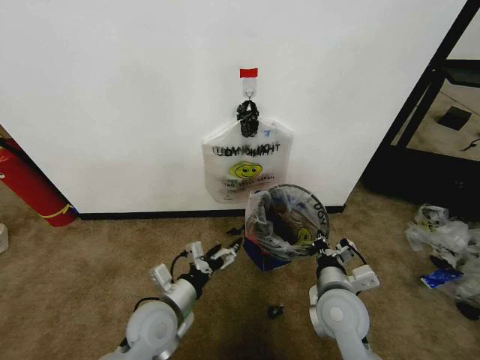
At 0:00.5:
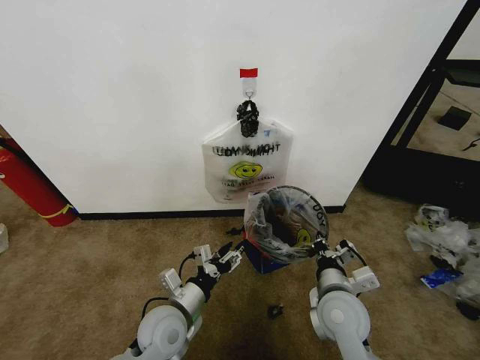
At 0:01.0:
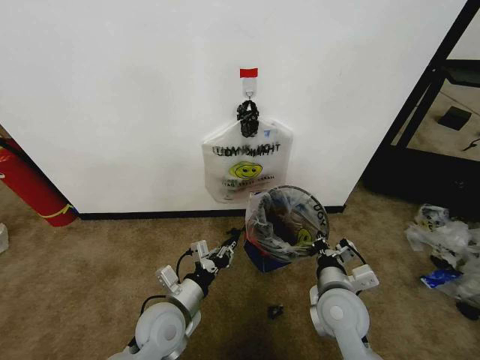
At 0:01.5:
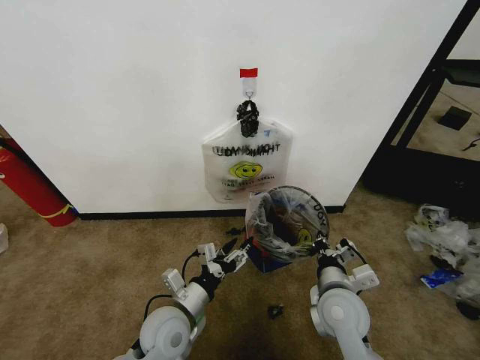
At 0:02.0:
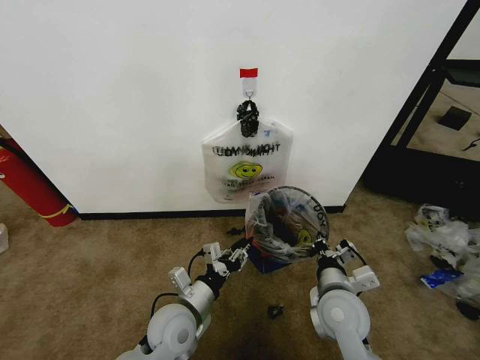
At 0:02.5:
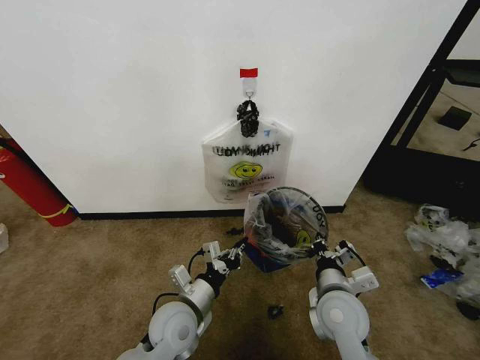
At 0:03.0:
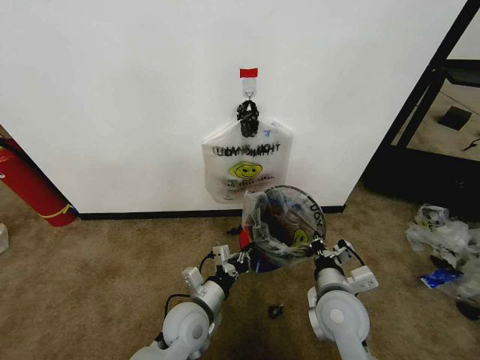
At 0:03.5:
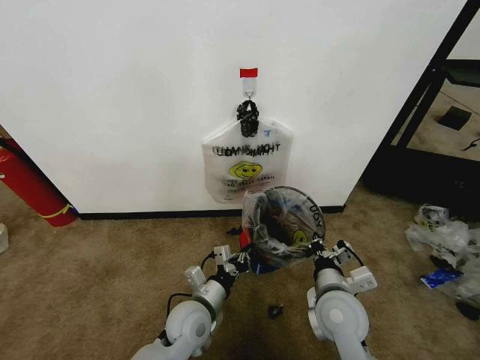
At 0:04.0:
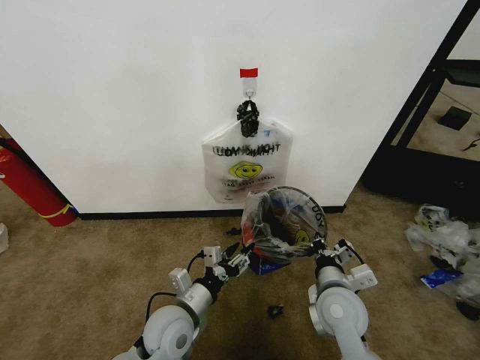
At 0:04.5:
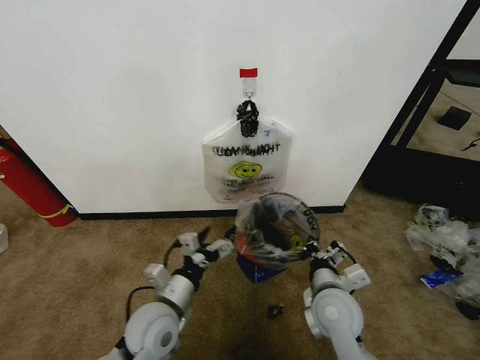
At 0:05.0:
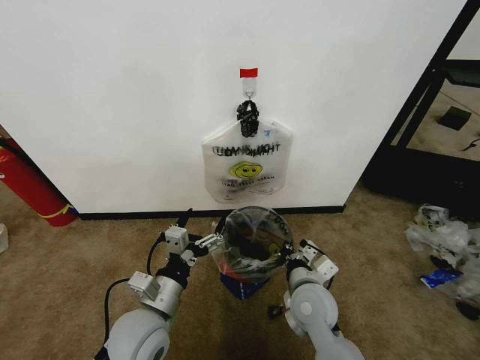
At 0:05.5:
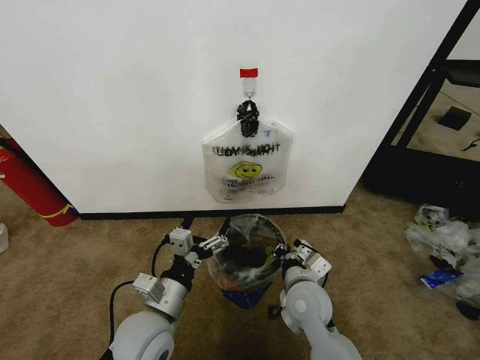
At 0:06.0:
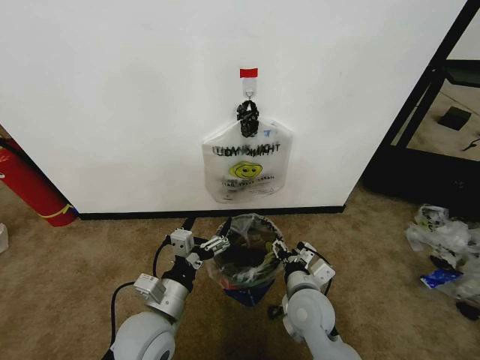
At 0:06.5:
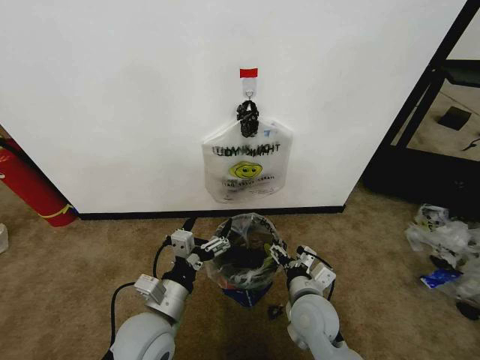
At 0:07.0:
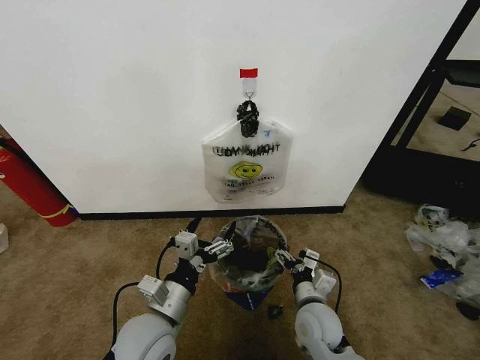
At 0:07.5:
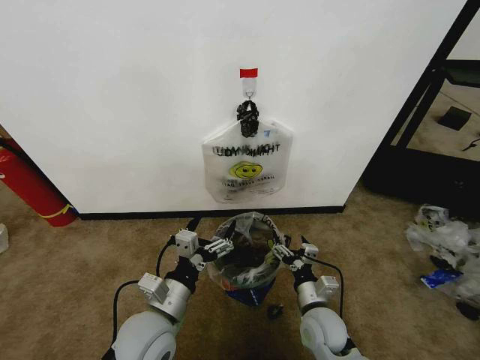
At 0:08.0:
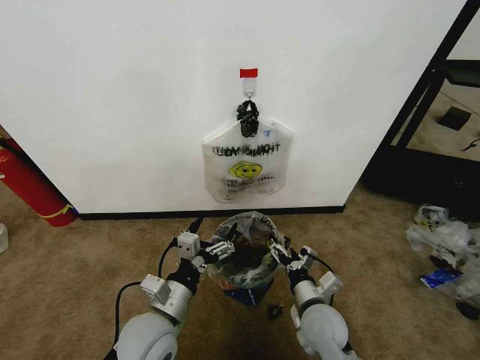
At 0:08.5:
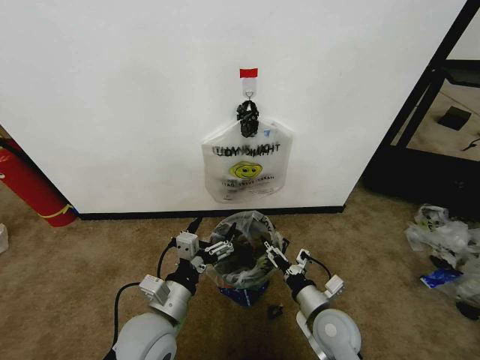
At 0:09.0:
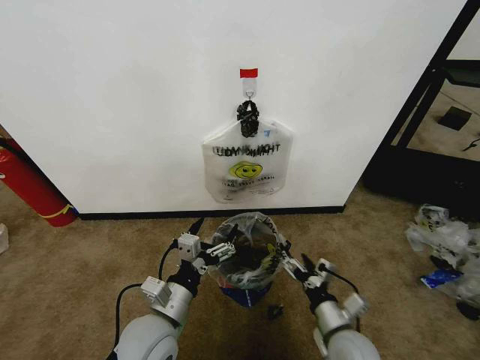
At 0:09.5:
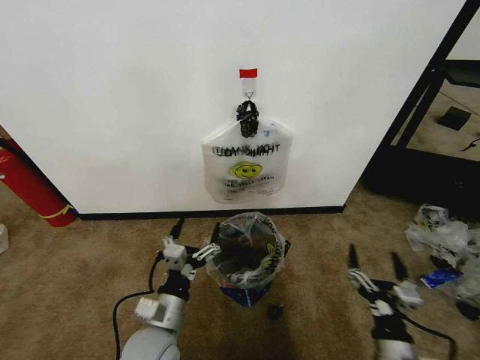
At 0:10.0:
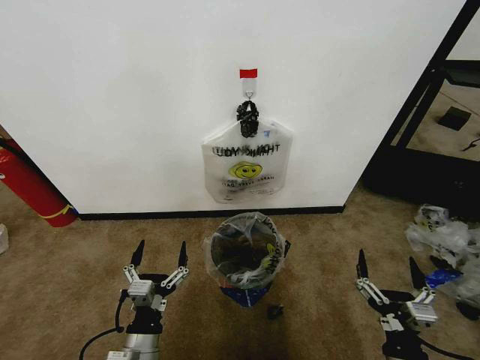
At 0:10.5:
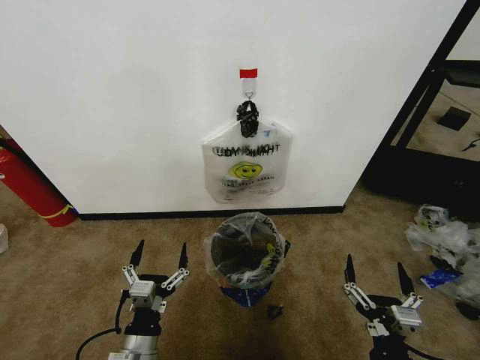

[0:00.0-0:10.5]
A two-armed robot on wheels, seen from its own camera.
Task of the whole recording: Pick up the garbage bag from the wall and place it over the trash bin.
0:00.0 to 0:02.0: The left gripper closes up.
0:02.0 to 0:04.0: The grippers make only small movements.
0:04.0 to 0:06.5: The right gripper shifts by roughly 5 cm, and opens its fingers. The left gripper is displaced upward by roughly 5 cm, and opens.
0:06.5 to 0:08.5: The right gripper goes roughly 5 cm to the right.
0:08.5 to 0:10.5: The right gripper moves backward, about 15 cm; the left gripper travels backward and downward by some 10 cm.

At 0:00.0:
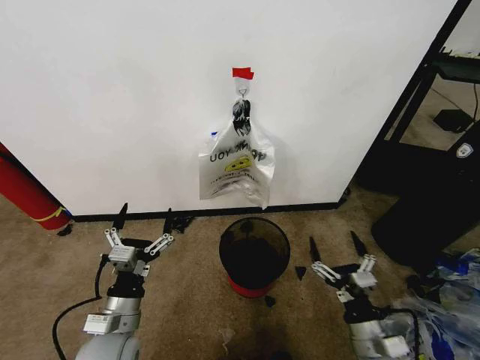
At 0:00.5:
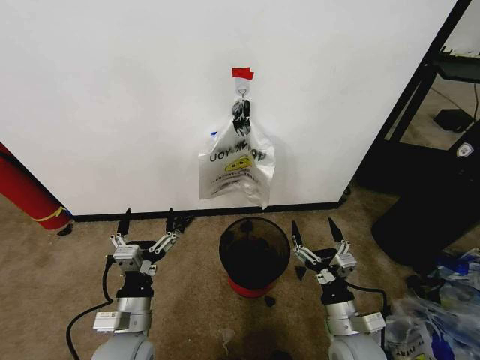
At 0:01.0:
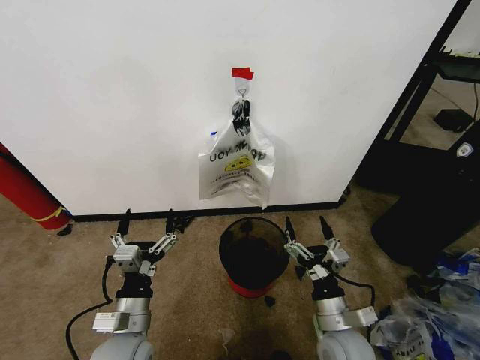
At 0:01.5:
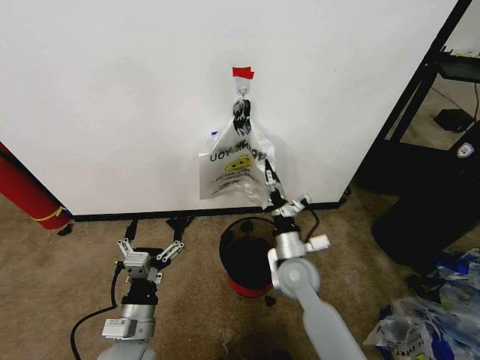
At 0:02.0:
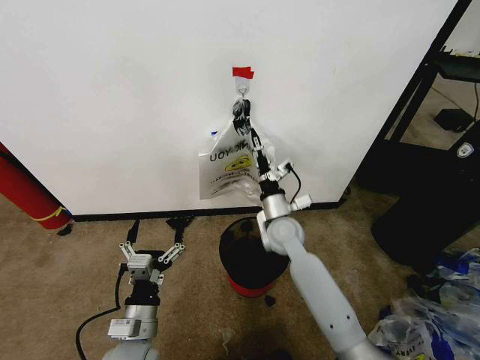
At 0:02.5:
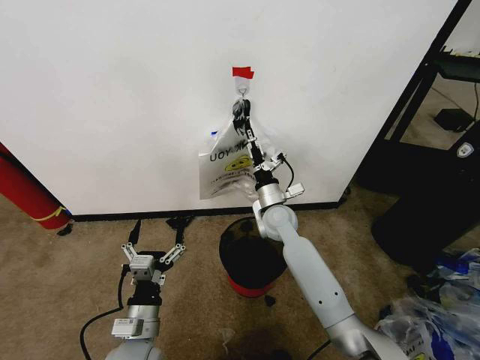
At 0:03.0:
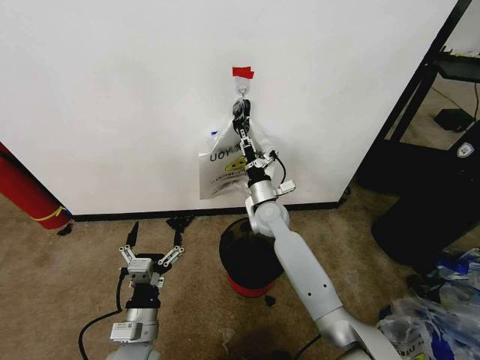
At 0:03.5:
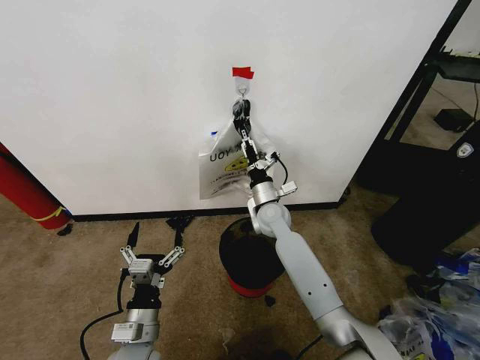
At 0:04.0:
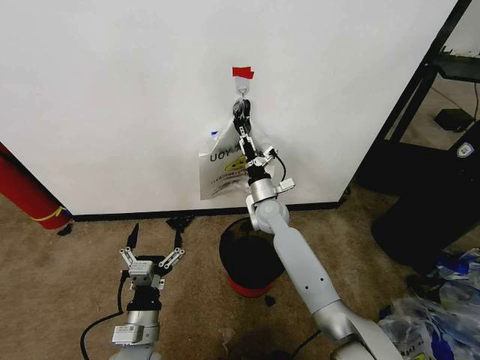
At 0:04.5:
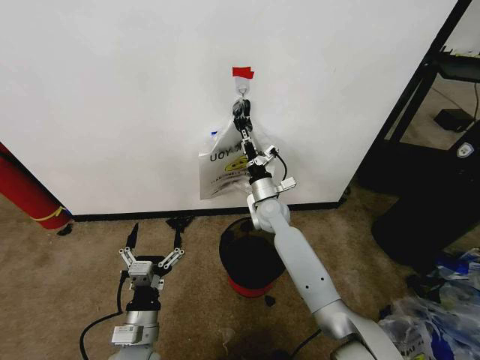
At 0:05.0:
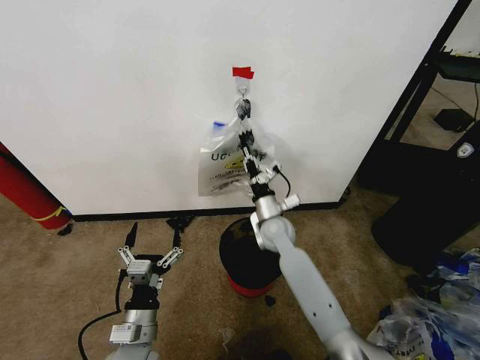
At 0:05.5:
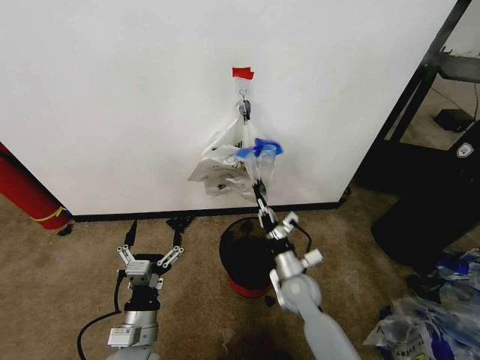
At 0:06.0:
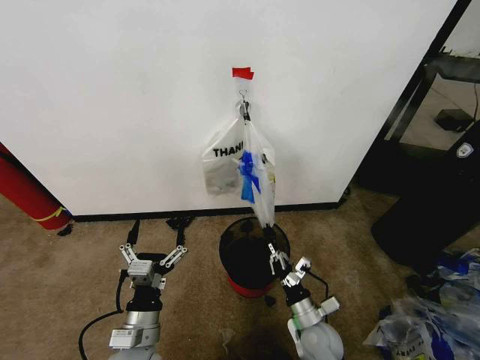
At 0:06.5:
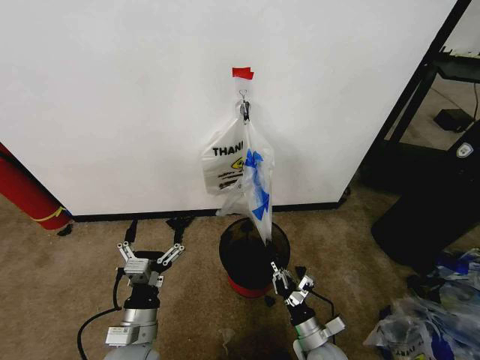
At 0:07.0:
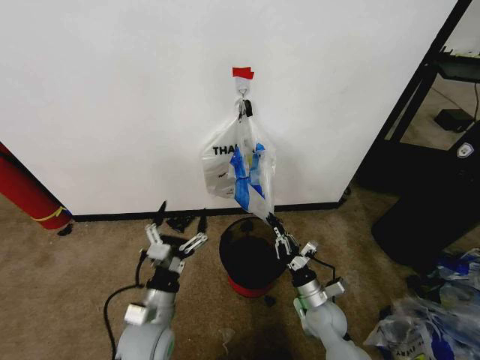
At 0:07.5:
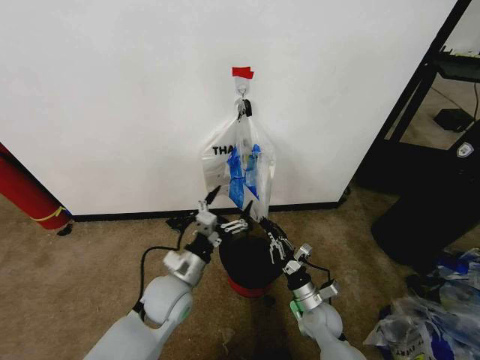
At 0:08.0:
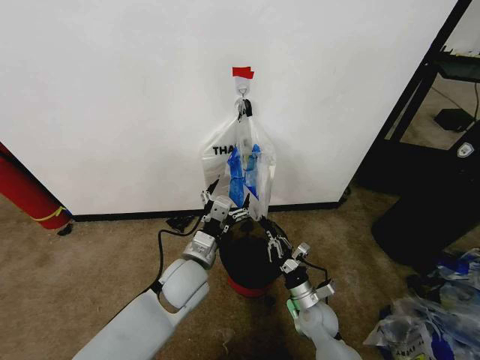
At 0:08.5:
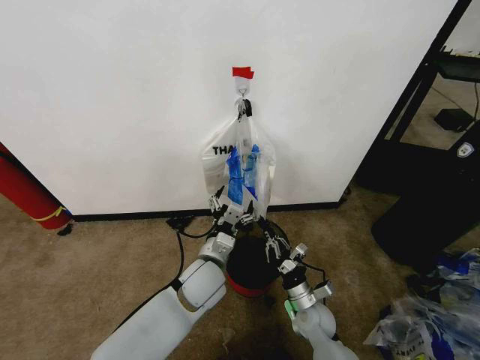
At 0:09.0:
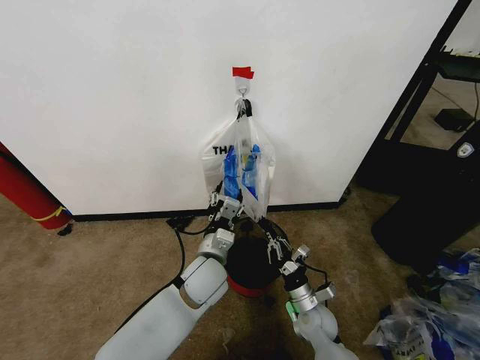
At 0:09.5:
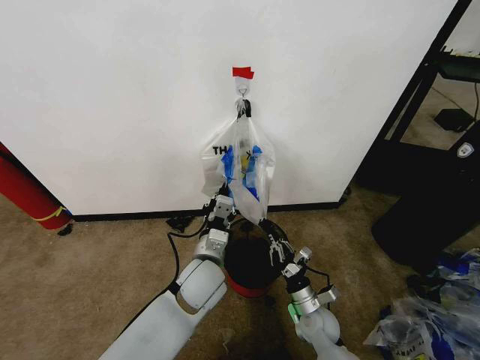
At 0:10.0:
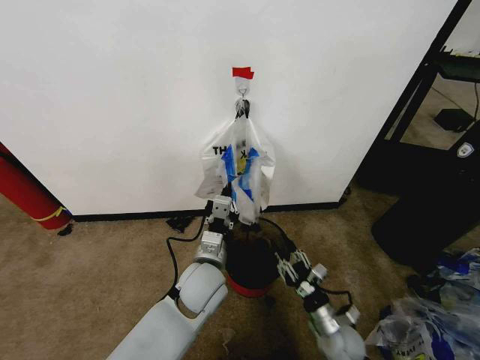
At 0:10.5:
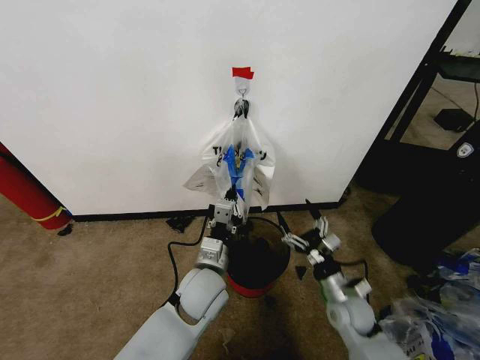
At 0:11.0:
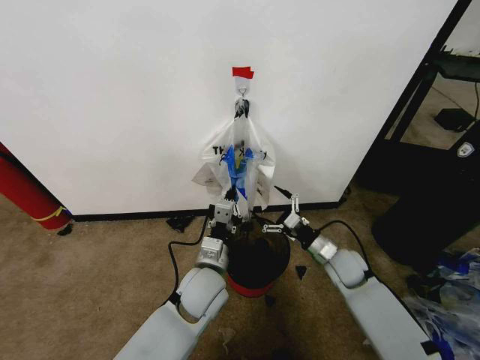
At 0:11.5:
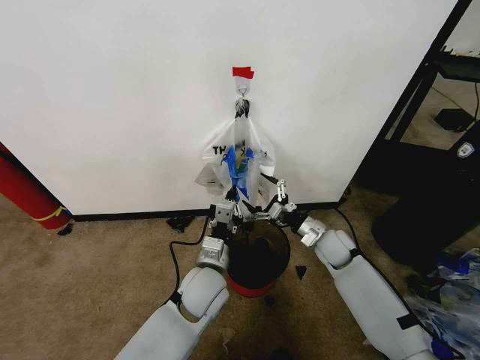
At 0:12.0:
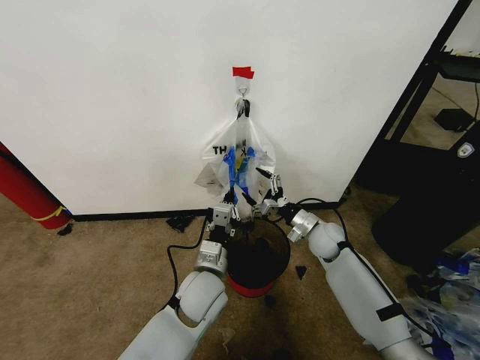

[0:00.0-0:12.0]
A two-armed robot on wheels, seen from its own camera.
Task of the whole recording: Pick up the garbage bag from the wall and place it over the trash bin.
0:02.0 to 0:04.0: The right gripper travels forward by about 5 cm, and closes up.
0:04.0 to 0:06.0: The right gripper travels backward and downward by roughly 30 cm, and closes its fingers.
0:06.0 to 0:08.0: The left gripper travels forward and to the right by approximately 15 cm. Meanwhile the right gripper goes some 5 cm forward.
0:08.0 to 0:10.0: The right gripper changes place by about 5 cm, and opens its fingers. Meanwhile the left gripper closes up.
0:10.0 to 0:12.0: The right gripper goes about 25 cm forward and upward, and opens.

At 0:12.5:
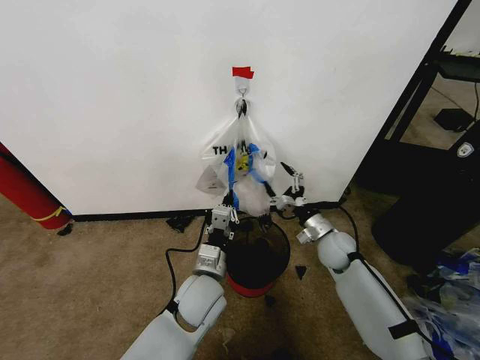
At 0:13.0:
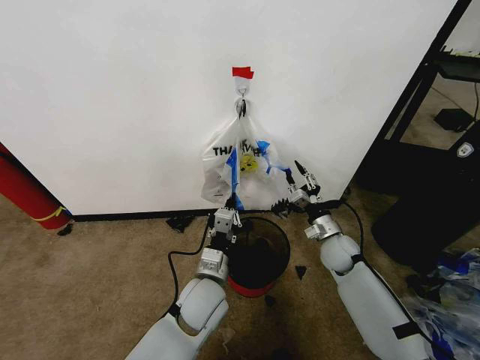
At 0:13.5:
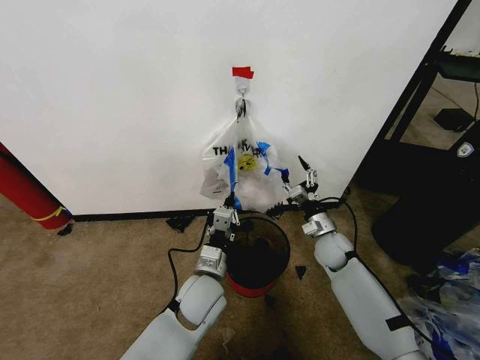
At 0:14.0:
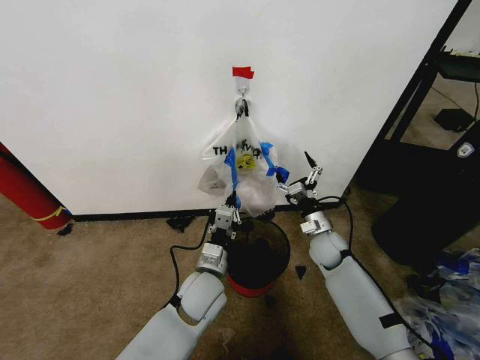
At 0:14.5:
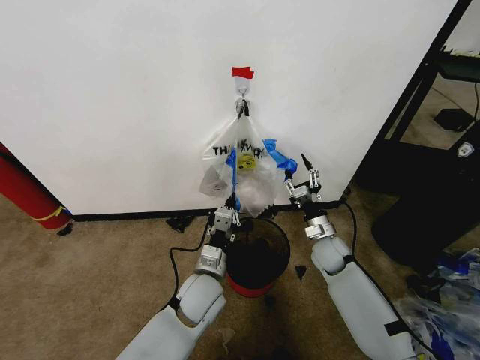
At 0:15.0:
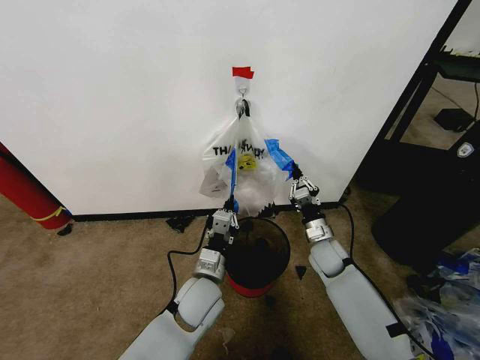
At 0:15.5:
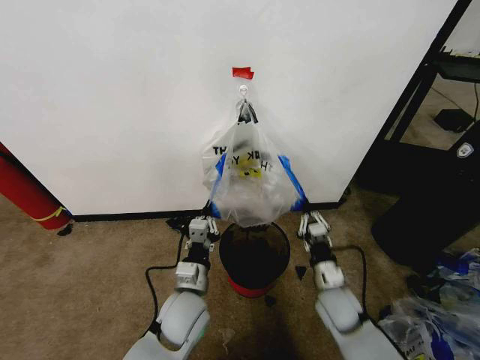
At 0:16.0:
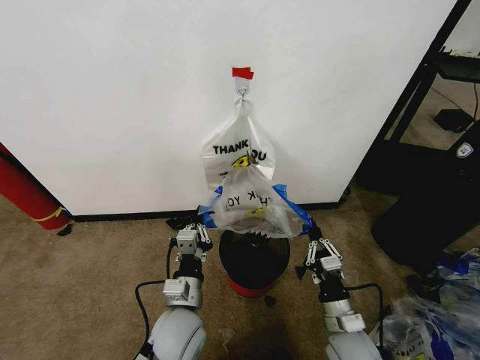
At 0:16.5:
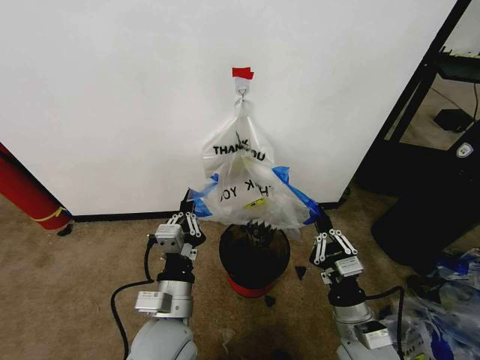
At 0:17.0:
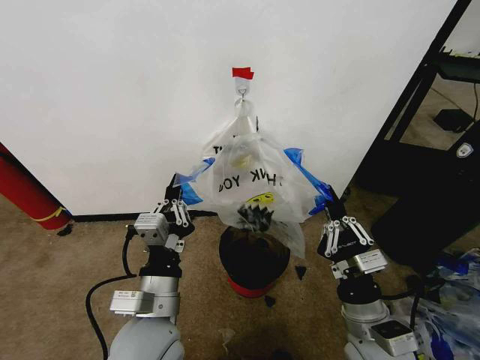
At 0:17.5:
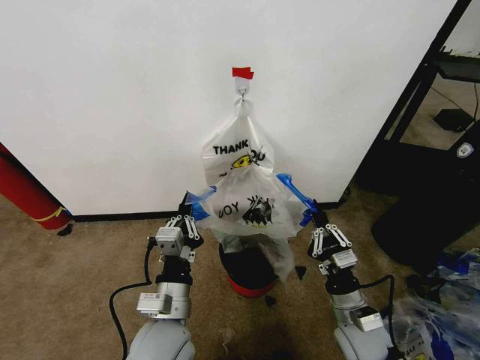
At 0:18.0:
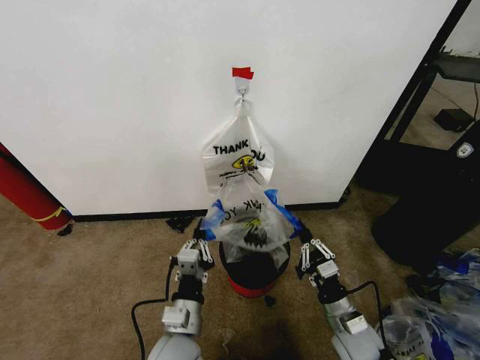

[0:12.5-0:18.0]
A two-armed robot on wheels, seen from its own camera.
Task of the whole recording: Pick up the garbage bag from the wall and place it over the trash bin.
0:12.5 to 0:14.5: The right gripper closes.
0:14.5 to 0:16.0: The left gripper goes about 5 cm backward. The right gripper is displaced backward by about 20 cm, and closes its fingers.
0:16.0 to 0:18.0: The left gripper reaches approximately 10 cm upward, then returns. The right gripper reaches roughly 10 cm upward, then returns.
